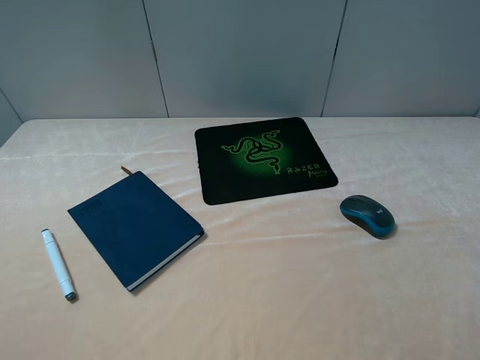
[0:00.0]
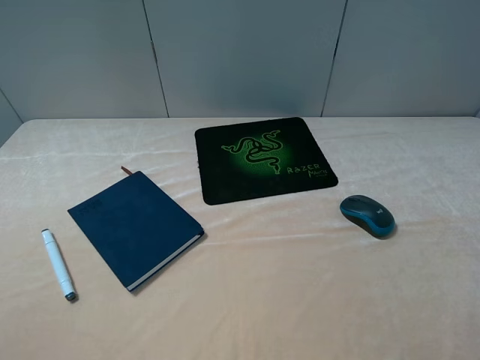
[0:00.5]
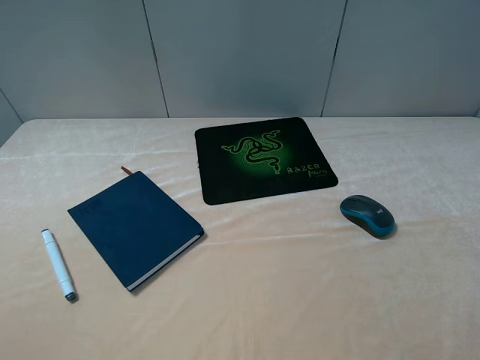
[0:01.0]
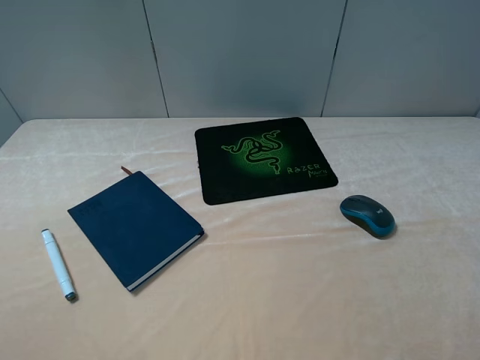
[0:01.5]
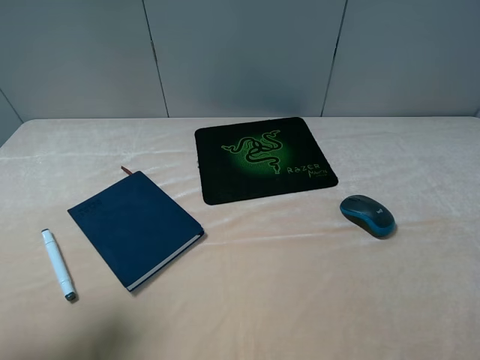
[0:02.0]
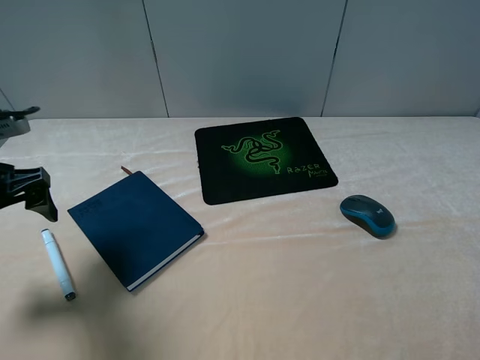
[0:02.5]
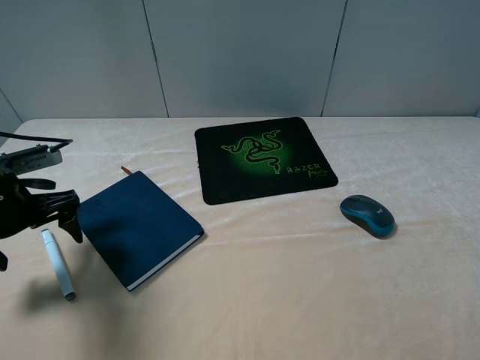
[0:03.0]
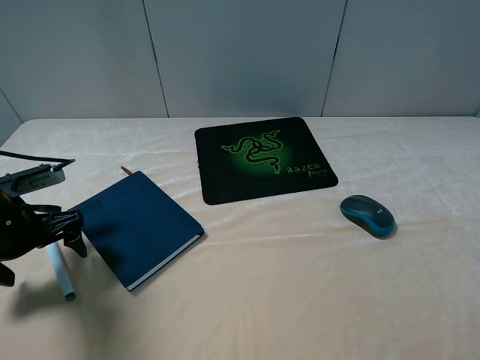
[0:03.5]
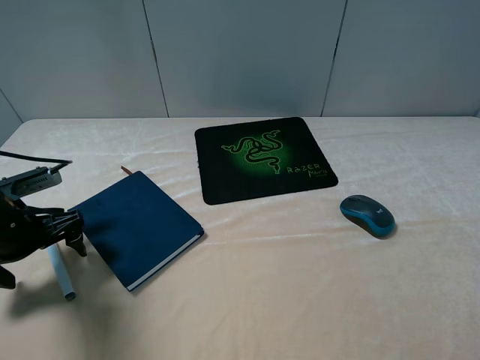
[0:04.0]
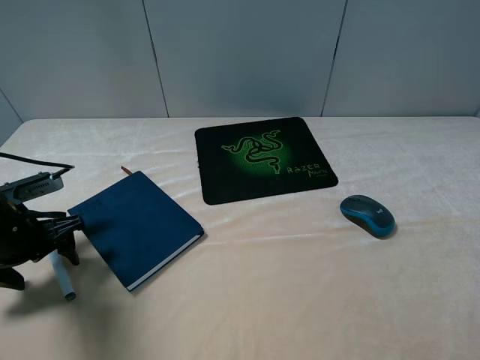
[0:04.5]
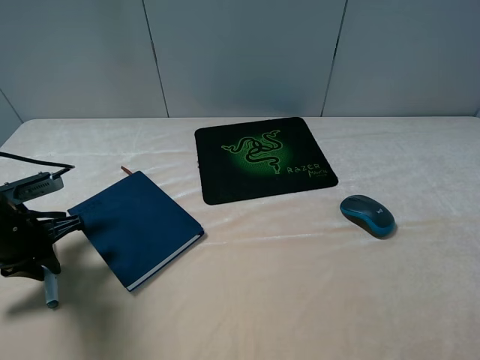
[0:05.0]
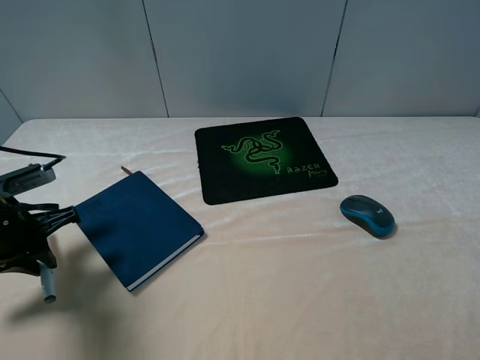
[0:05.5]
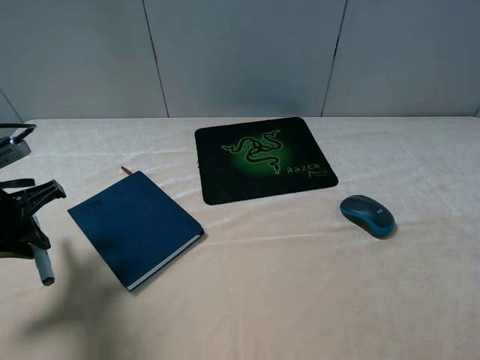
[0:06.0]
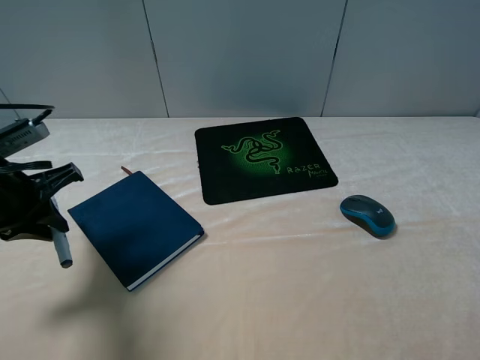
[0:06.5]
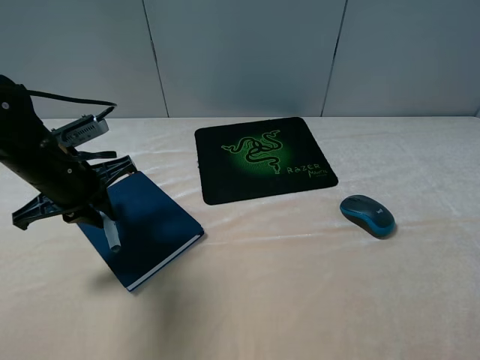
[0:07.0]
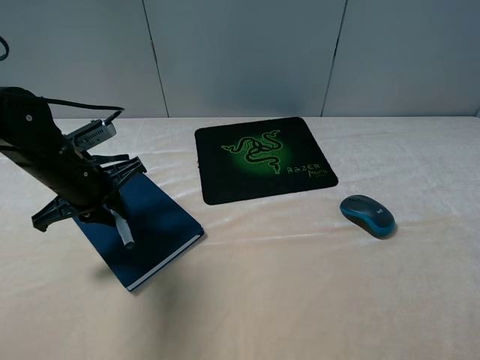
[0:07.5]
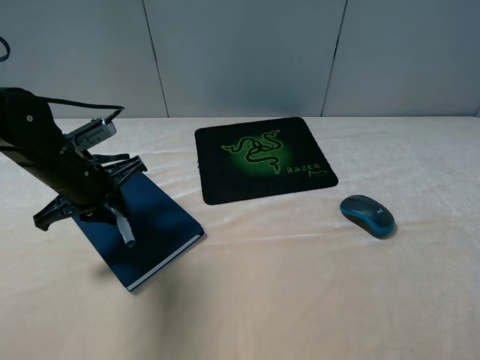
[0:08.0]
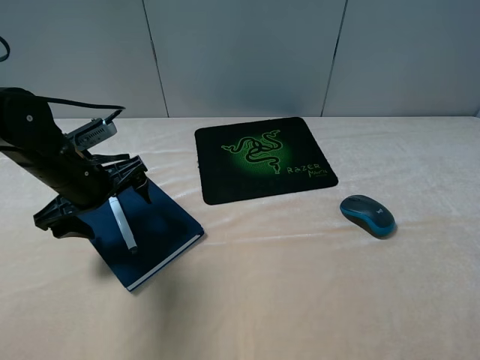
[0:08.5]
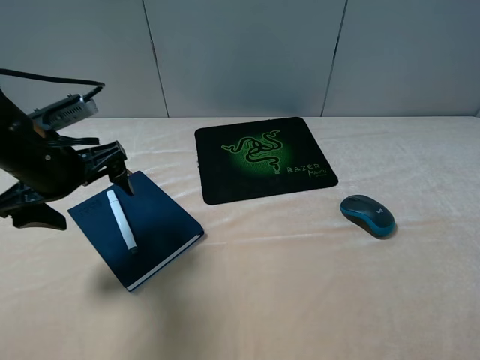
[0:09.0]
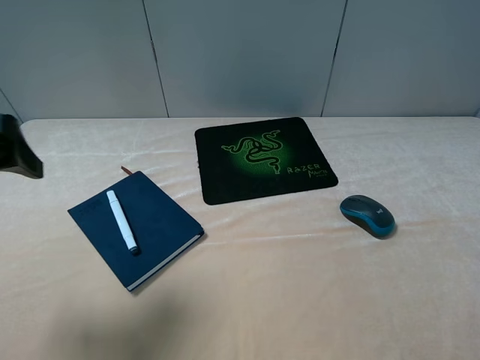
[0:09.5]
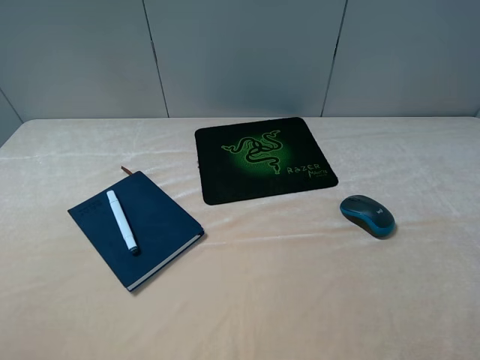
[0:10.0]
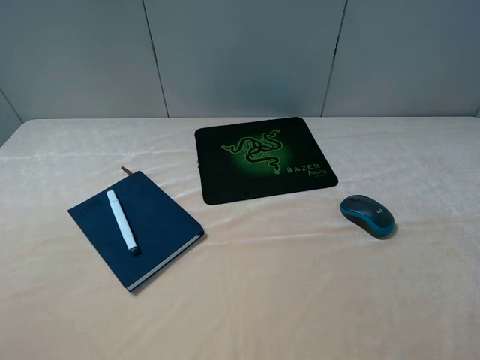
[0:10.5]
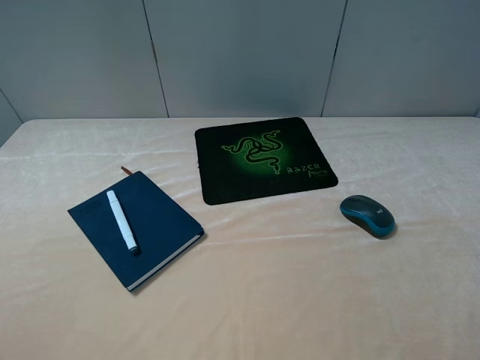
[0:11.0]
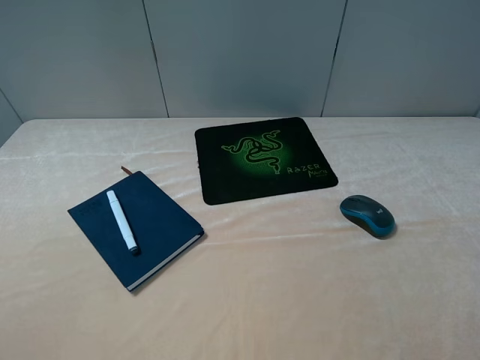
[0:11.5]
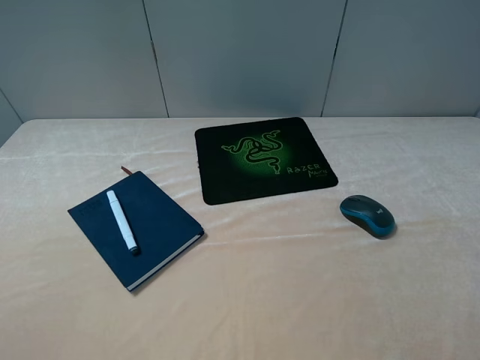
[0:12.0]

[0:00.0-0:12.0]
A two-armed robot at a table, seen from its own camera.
Step, 0:00.0 to 0:05.0: Grasp the marker with the left gripper.
Step, 0:05.5 to 0:08.5: Place the marker on the notebook with the left gripper.
0:00.0 to 0:02.0: The left gripper moves forward, approximately 15 cm.
0:02.0 to 0:04.0: The left gripper moves downward and forward, approximately 20 cm.
0:04.0 to 0:06.0: The left gripper goes approximately 5 cm upward, and closes its fingers.
0:06.0 to 0:08.0: The left gripper is displaced to the right and forward by roughly 10 cm.
0:08.0 to 0:10.0: The left gripper travels backward, upward and to the left by about 30 cm, and opens up.

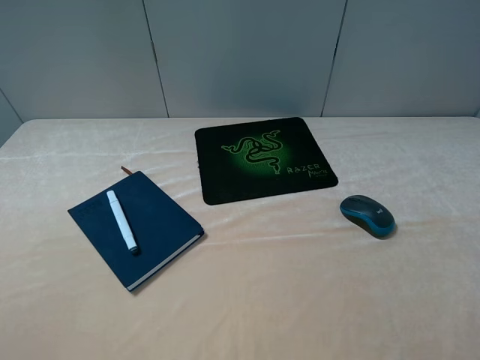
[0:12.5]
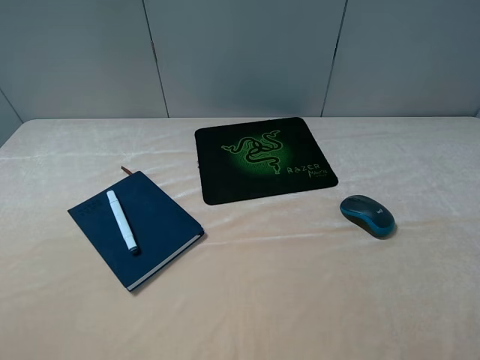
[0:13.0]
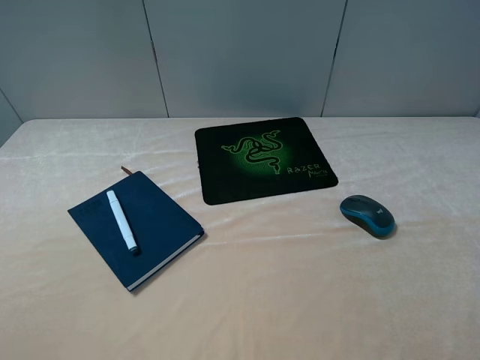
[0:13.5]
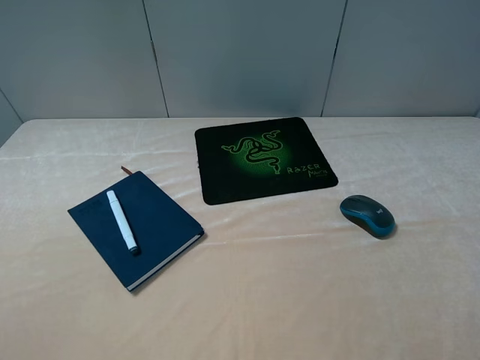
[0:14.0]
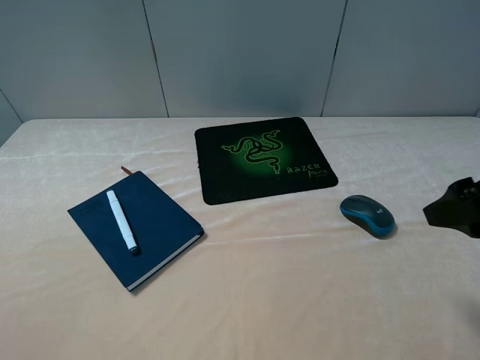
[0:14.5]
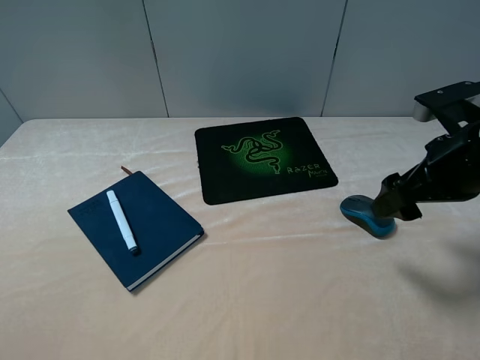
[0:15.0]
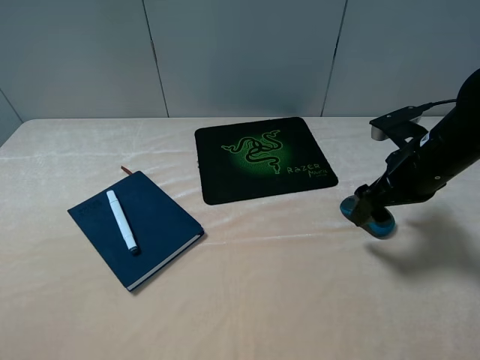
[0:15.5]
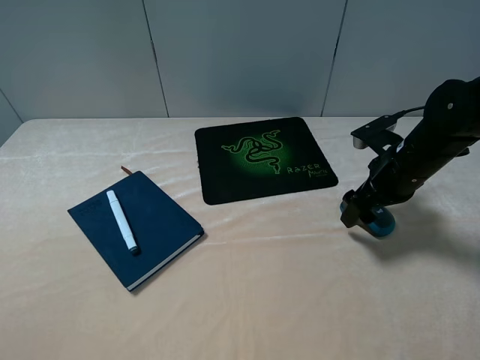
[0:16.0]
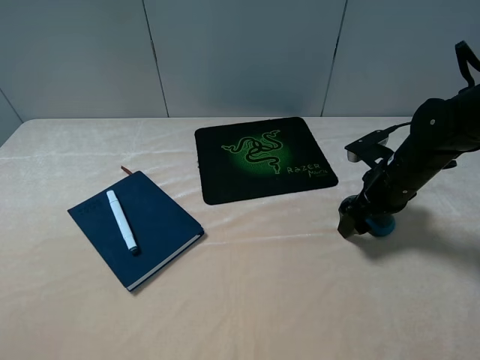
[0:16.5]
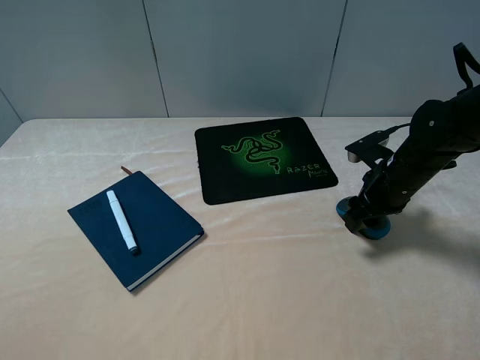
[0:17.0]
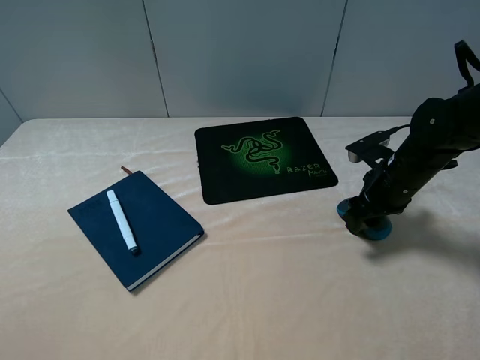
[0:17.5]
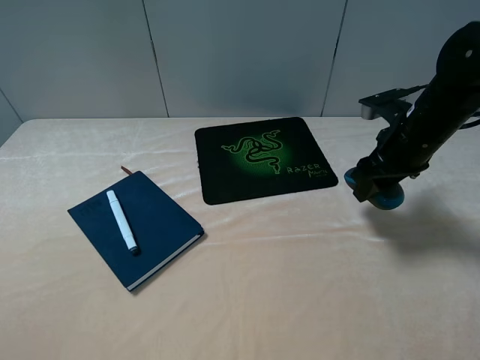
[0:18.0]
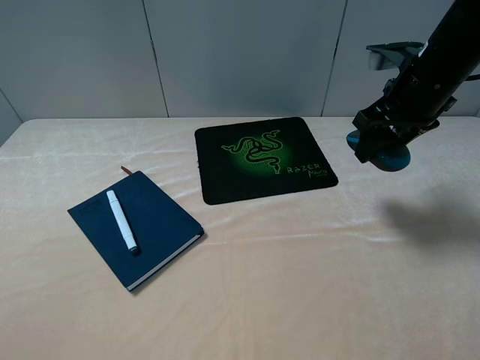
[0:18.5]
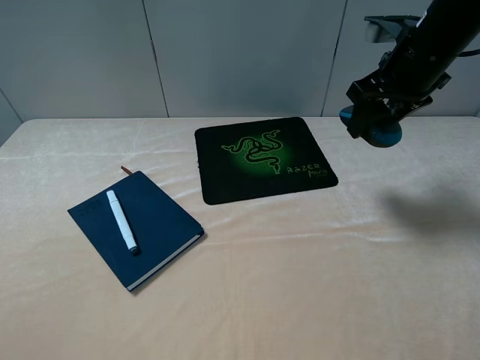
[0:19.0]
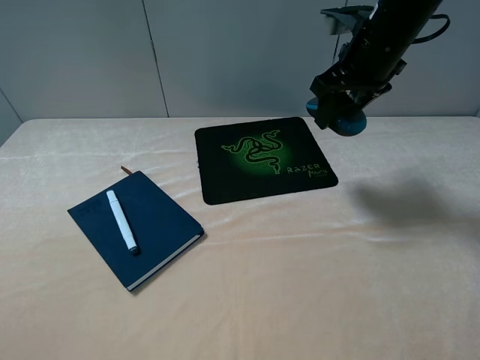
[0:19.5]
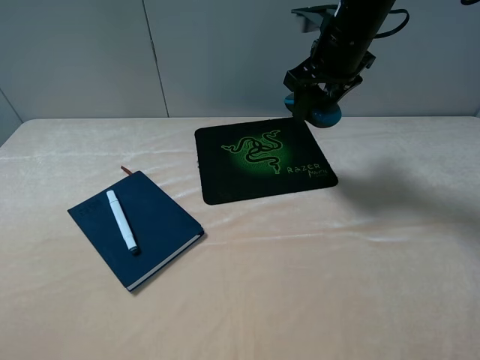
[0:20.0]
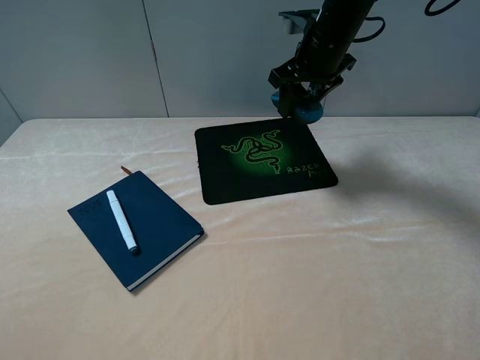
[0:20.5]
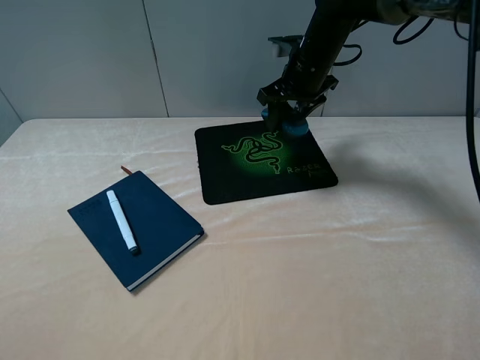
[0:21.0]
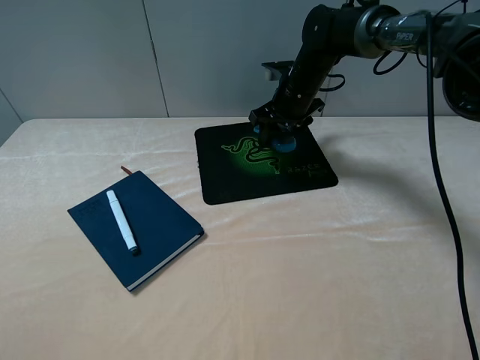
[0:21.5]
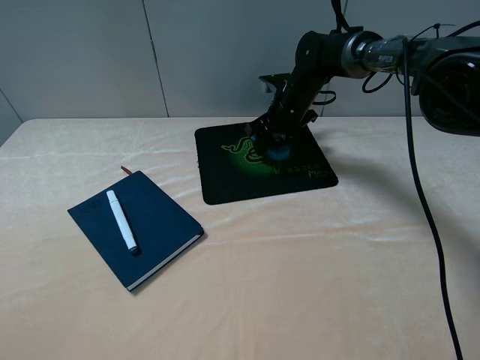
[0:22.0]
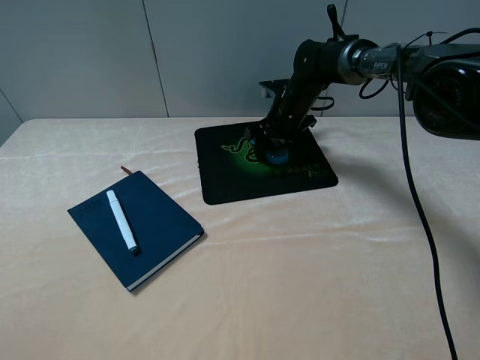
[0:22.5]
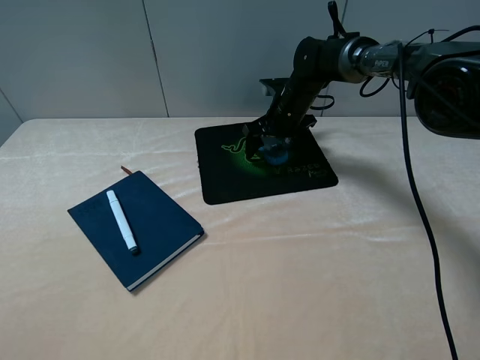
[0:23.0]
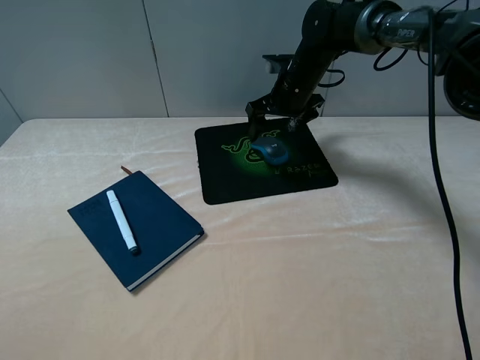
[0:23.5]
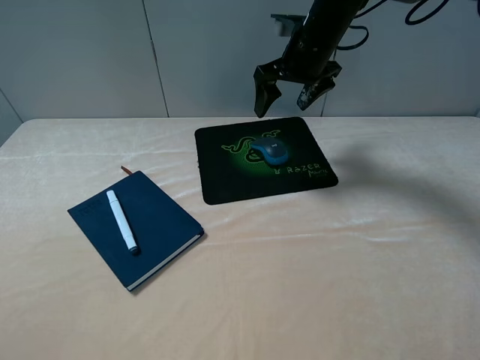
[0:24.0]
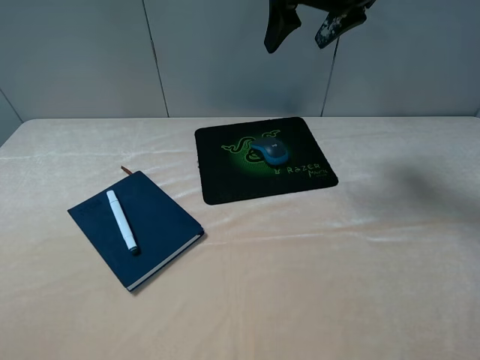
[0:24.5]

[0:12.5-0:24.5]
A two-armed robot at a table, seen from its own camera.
Step, 0:12.5 to 0:17.0: Grasp the mouse with the right gripper.
Step, 0:17.5 to 0:23.0: Place the mouse on the mouse pad with the right gripper.
0:12.5 to 0:14.5: The right gripper shifts approximately 15 cm forward.
0:14.5 to 0:16.5: The right gripper shifts roughly 20 cm downward and forward.
0:16.5 to 0:18.5: The right gripper heads upward, covering some 15 cm, and closes up.
0:18.5 to 0:20.5: The right gripper is displaced to the left and forward by roughly 15 cm.
0:20.5 to 0:22.5: The right gripper travels downward by roughly 15 cm.
0:22.5 to 0:24.5: The right gripper moves upward, about 25 cm, and opens its fingers.

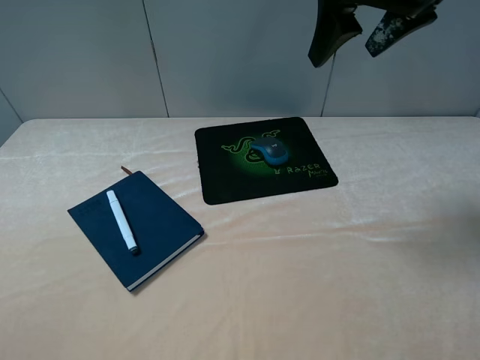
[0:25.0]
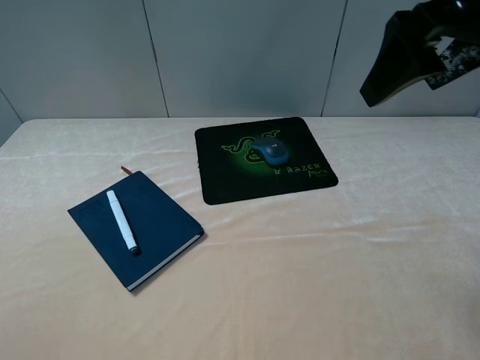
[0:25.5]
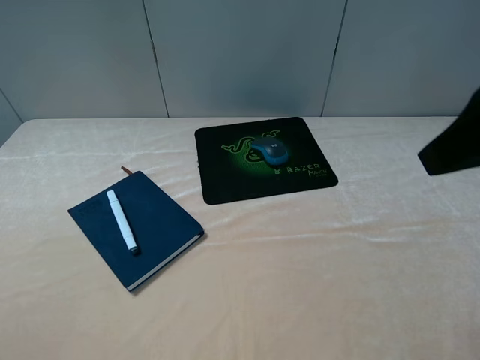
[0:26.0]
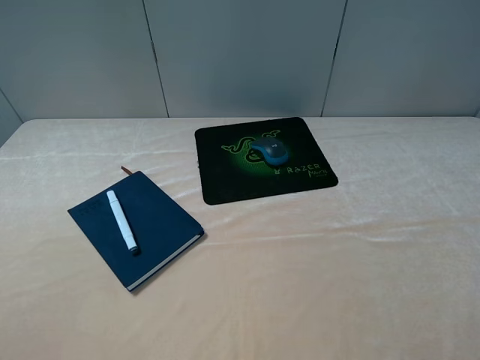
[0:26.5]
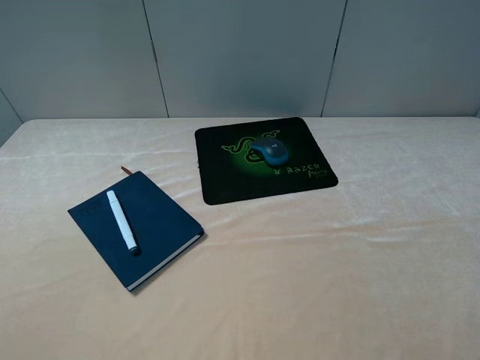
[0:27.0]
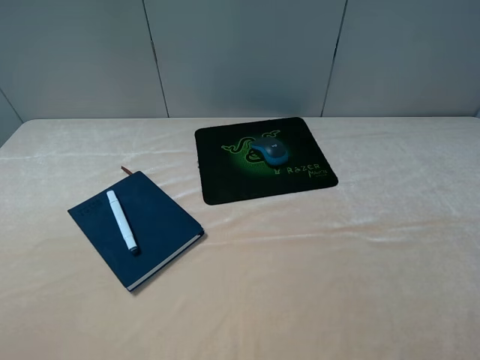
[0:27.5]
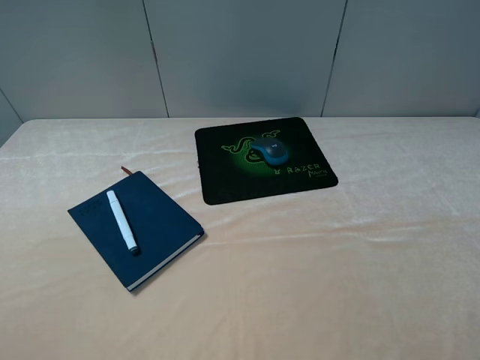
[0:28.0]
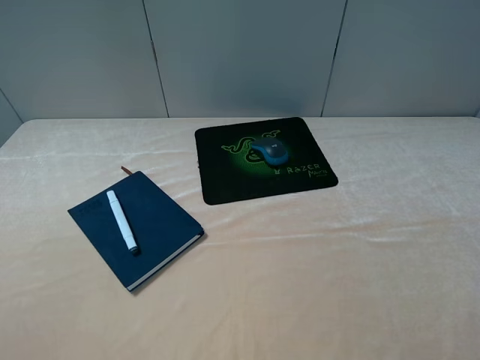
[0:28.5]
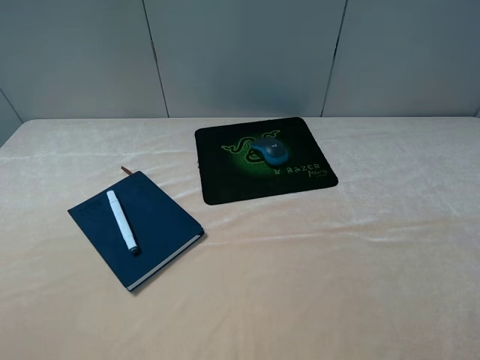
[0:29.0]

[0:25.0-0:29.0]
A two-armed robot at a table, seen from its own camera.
0:25.0 to 0:27.0: The right gripper goes roughly 35 cm backward and to the right.
